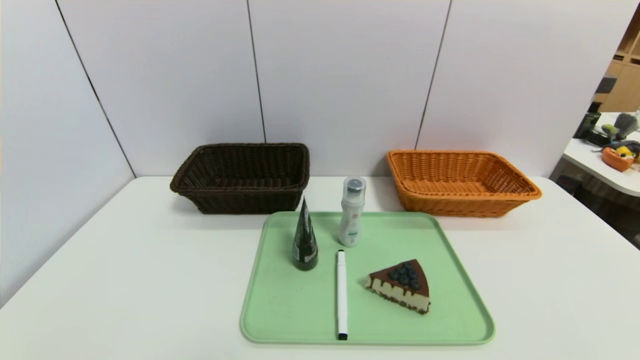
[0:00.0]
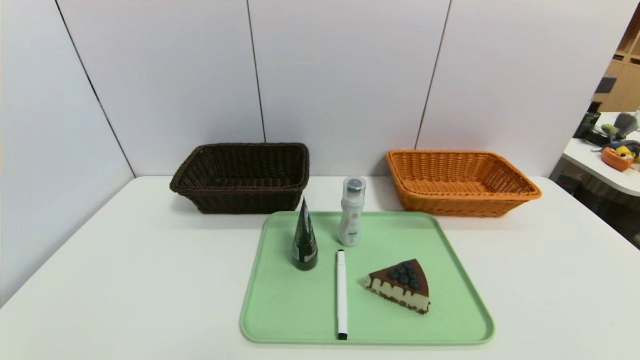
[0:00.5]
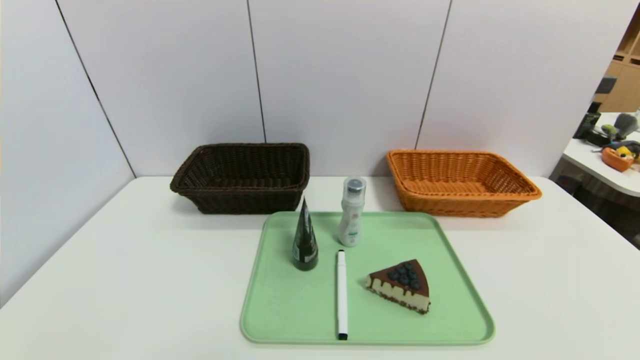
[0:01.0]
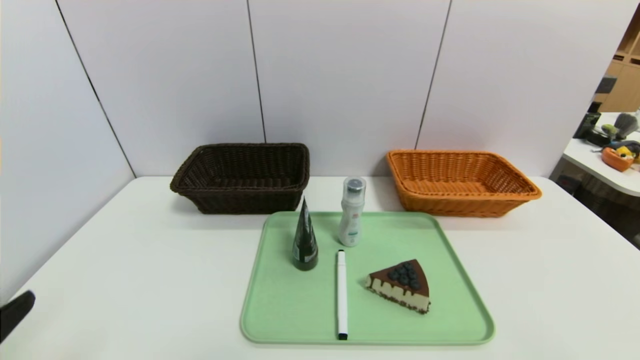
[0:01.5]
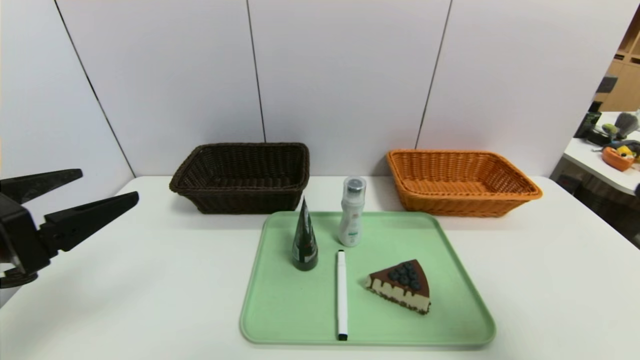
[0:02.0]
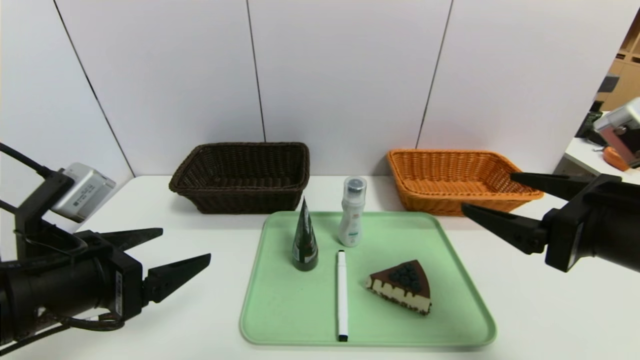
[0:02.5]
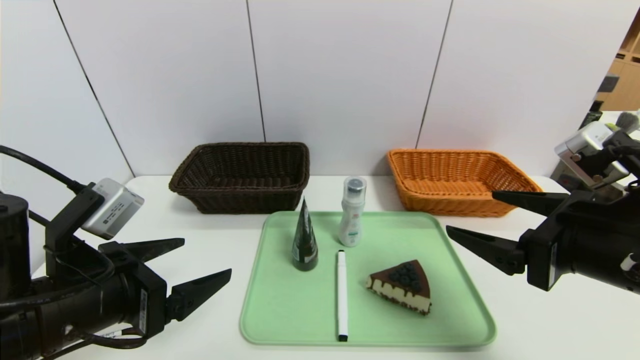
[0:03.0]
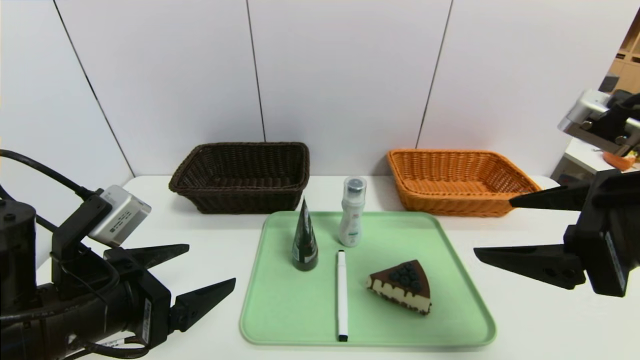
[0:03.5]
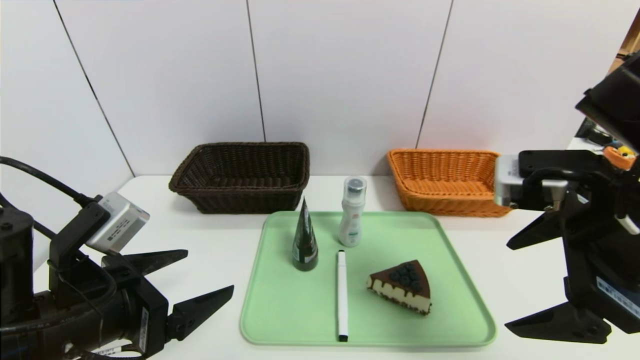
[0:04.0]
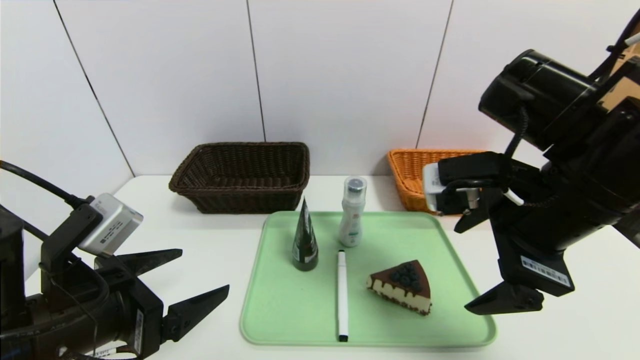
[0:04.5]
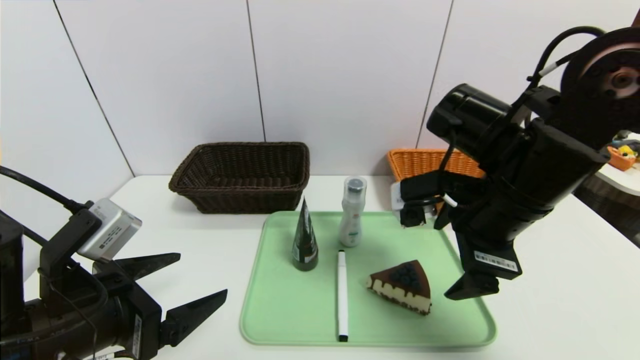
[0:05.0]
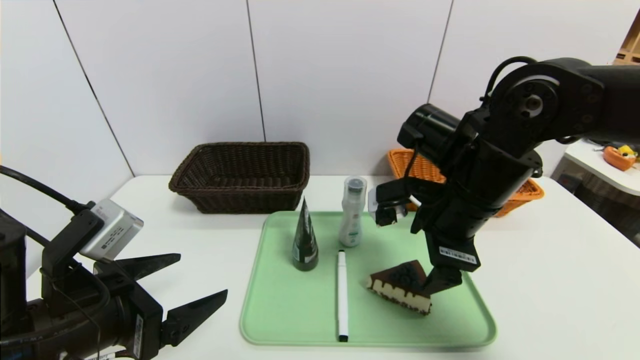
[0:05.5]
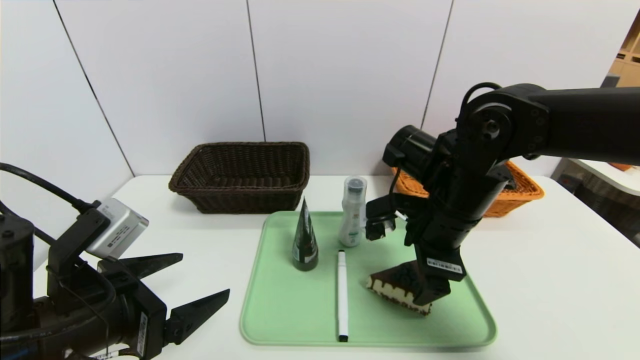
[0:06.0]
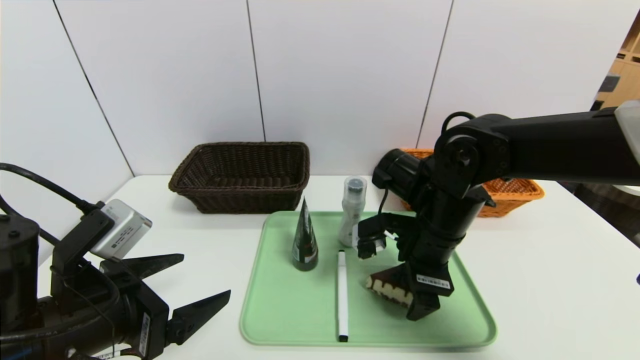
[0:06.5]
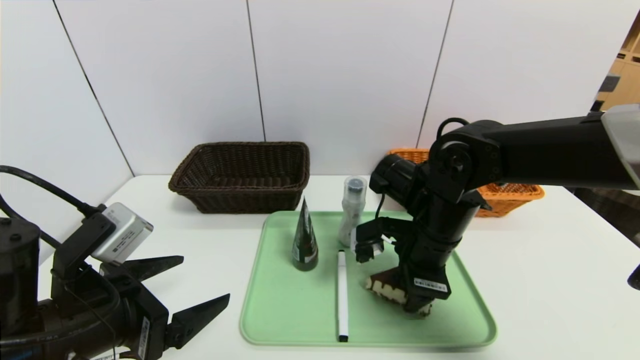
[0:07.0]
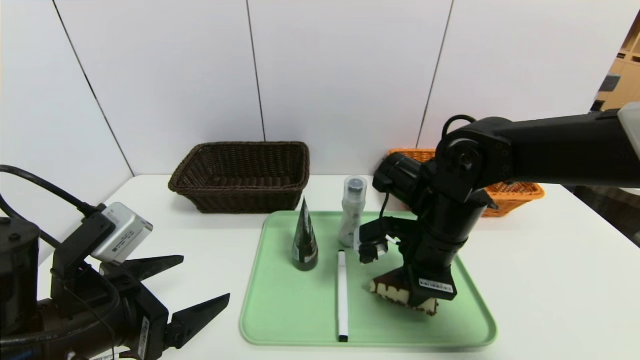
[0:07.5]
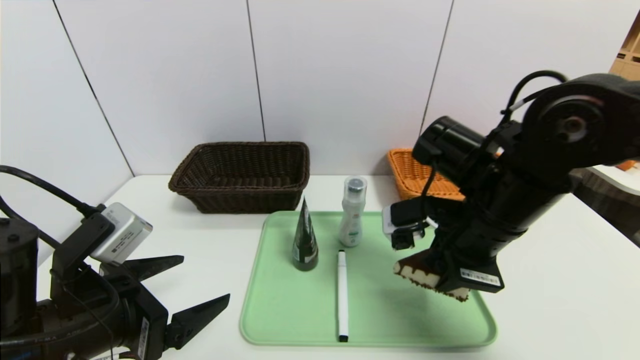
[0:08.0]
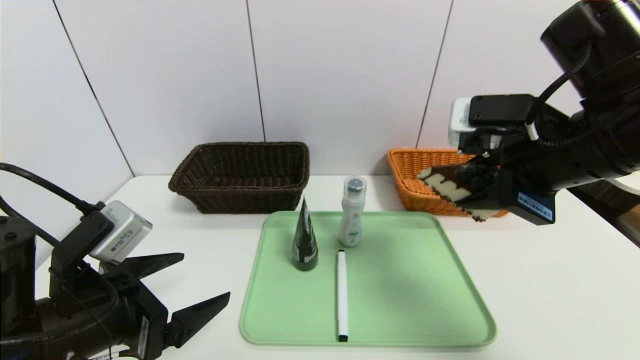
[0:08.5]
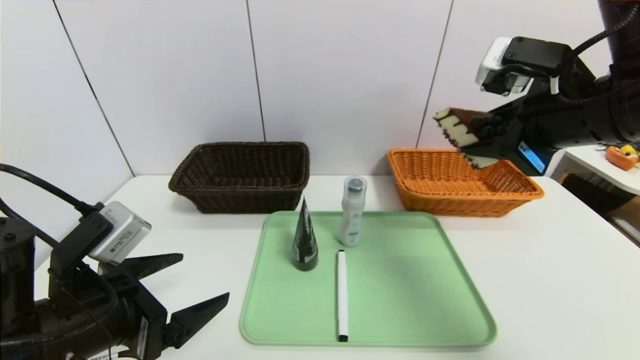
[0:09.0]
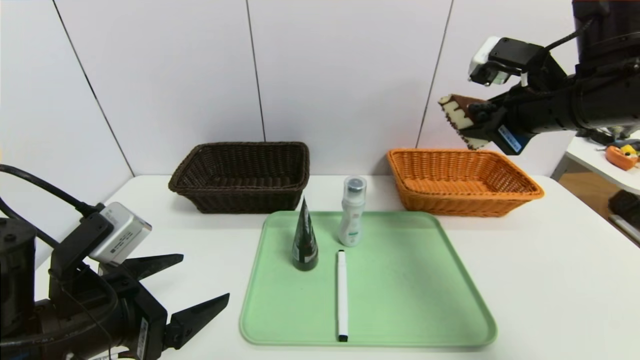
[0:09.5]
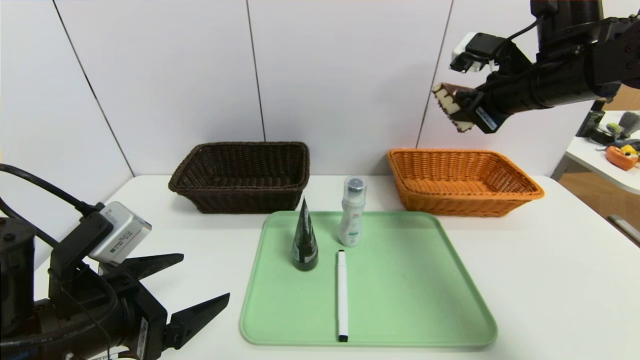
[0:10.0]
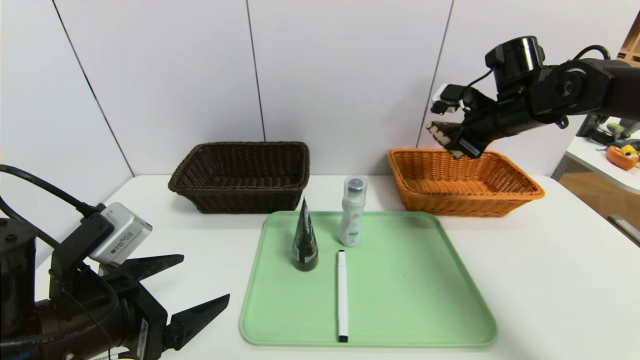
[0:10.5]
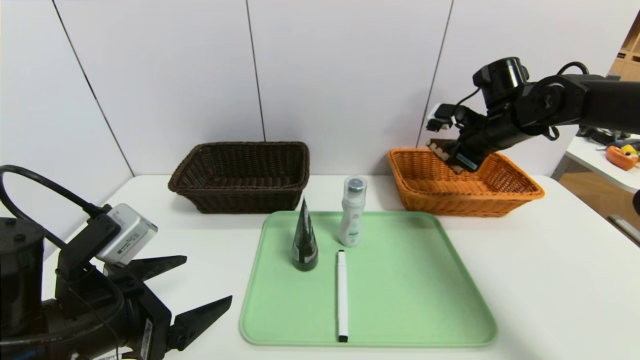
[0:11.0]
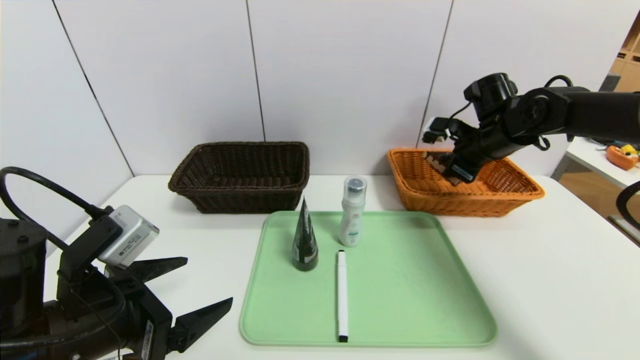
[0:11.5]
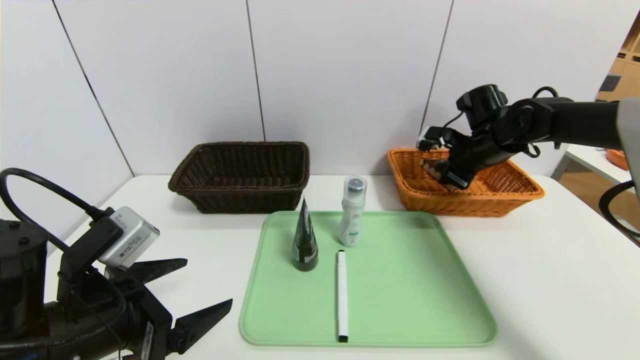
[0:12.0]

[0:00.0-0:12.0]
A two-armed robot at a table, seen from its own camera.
Task of the whole recording: place the food in the right basket with the right gripper, and place the non food items in the left basket with the left gripper.
0:00.0 to 0:02.0: The two grippers go about 25 cm upward and forward.
0:02.0 to 0:04.0: The left gripper is displaced downward and to the right by some 10 cm. Meanwhile the right gripper shifts about 10 cm to the left and forward.
0:04.0 to 0:06.0: The right gripper is displaced forward, downward and to the left by some 15 cm.
0:06.0 to 0:08.0: The right gripper closes up.
0:08.0 to 0:10.0: The right gripper goes roughly 15 cm forward, to the right and upward.
0:10.0 to 0:12.0: The right gripper heads downward and forward, covering about 15 cm.

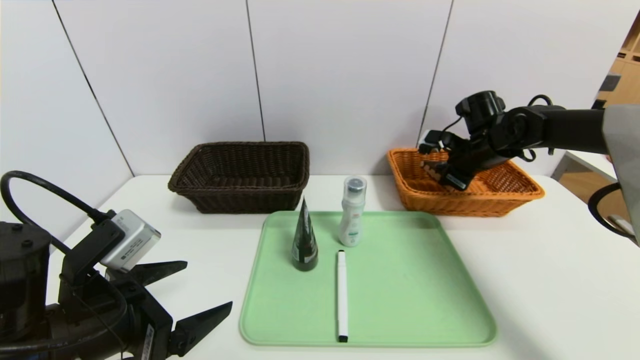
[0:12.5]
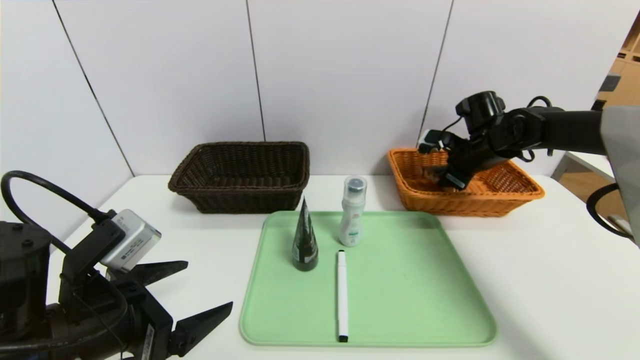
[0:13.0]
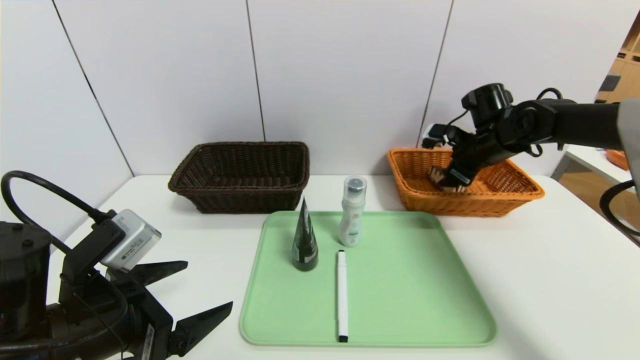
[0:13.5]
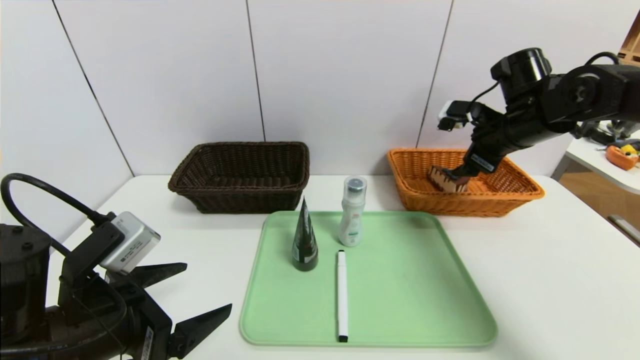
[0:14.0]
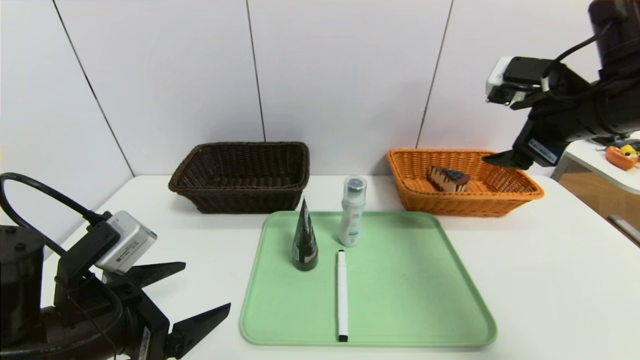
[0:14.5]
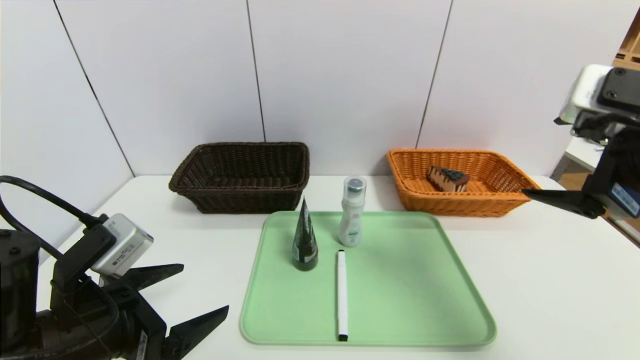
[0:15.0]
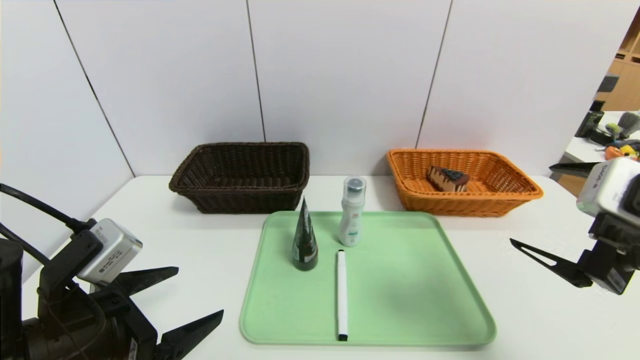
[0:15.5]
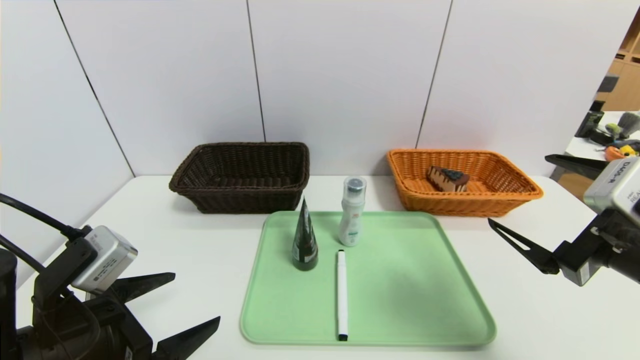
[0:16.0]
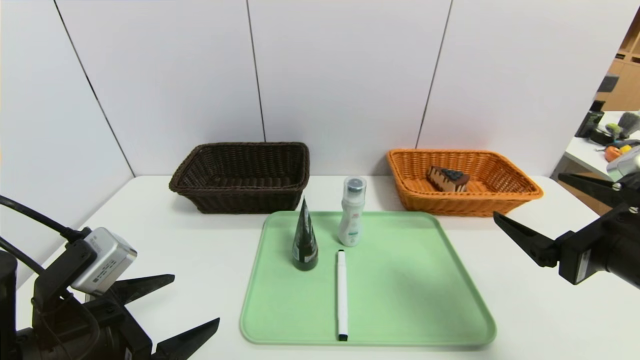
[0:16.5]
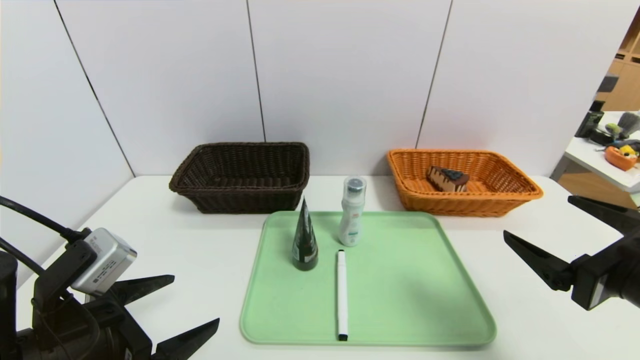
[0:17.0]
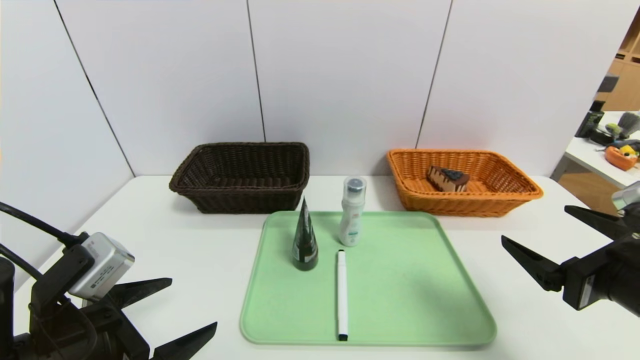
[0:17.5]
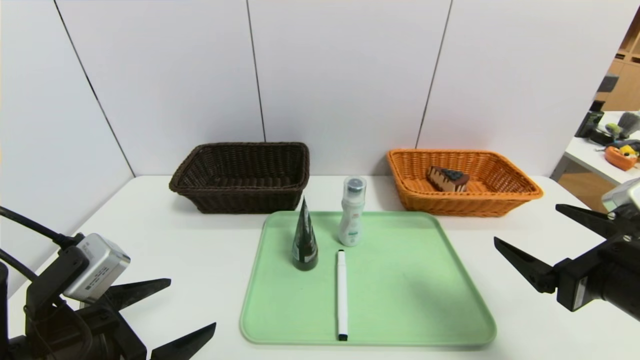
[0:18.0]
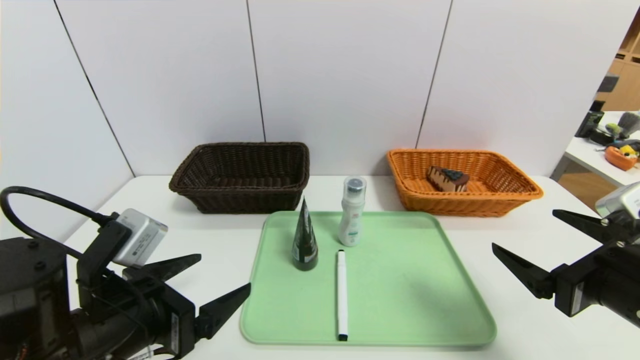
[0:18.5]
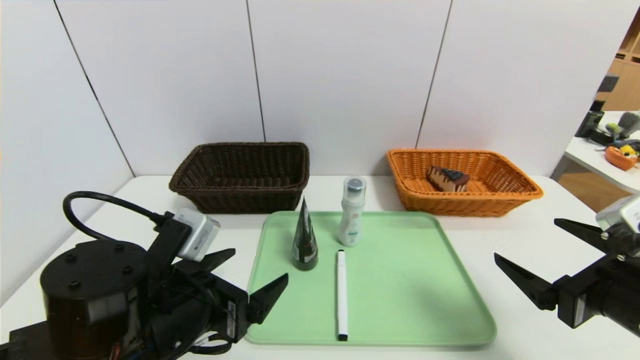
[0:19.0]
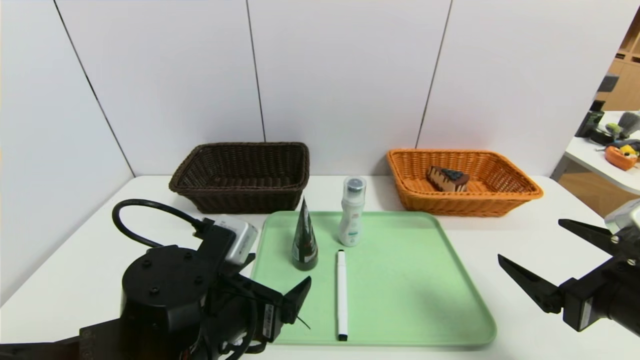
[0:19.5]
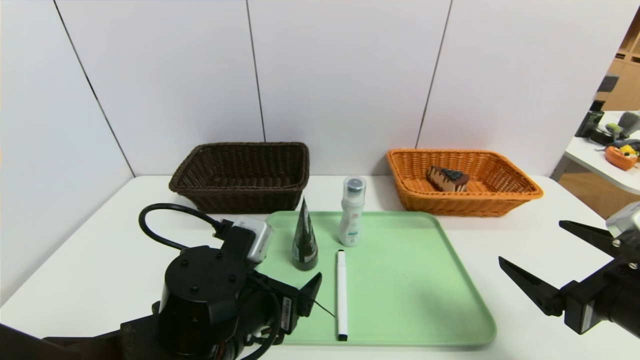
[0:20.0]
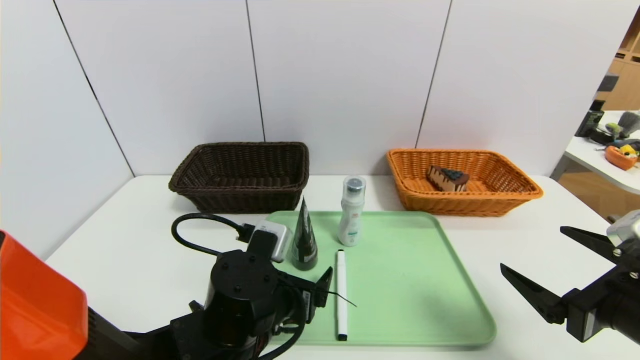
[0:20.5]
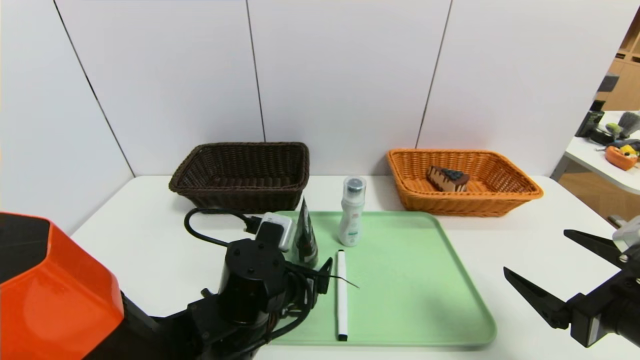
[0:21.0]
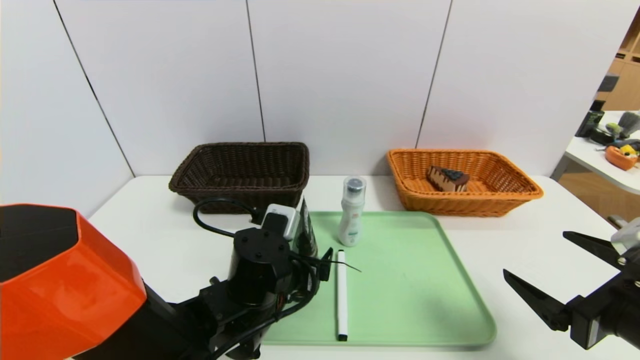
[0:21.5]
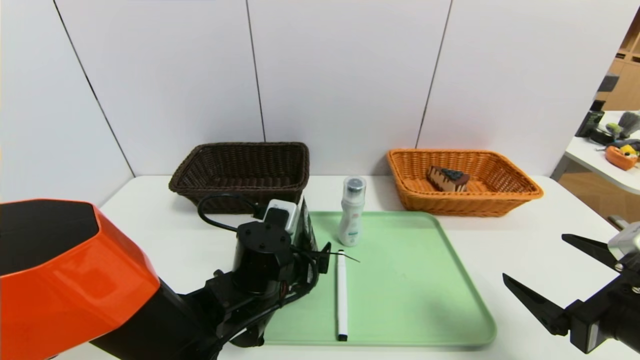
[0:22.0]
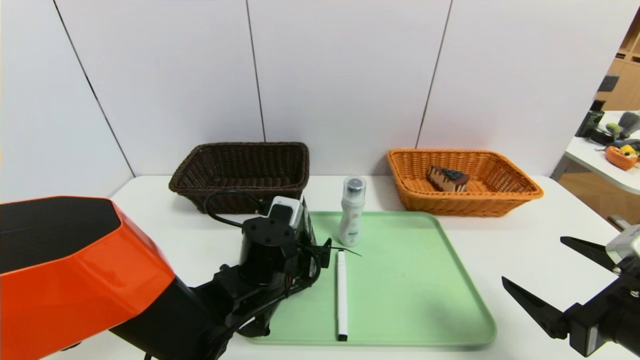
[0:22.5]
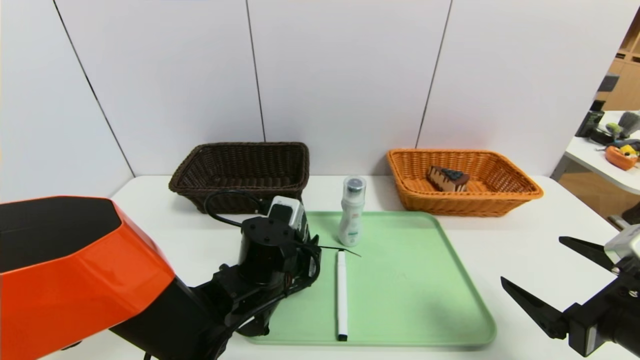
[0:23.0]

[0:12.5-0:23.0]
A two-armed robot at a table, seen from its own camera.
Task of the whole recording: place the food in the right basket with the right gripper, and place the non food items in the left basket with the left gripper.
0:12.5 to 0:14.5: The right gripper shifts roughly 20 cm backward and upward, and opens its fingers.
0:14.5 to 0:16.5: The right gripper travels backward and downward by about 15 cm.
0:16.5 to 0:19.0: The left gripper moves to the right, about 5 cm.
0:19.0 to 0:21.0: The left gripper is displaced to the right, forward and downward by some 10 cm.
0:21.0 to 0:23.0: The left gripper closes its fingers.
